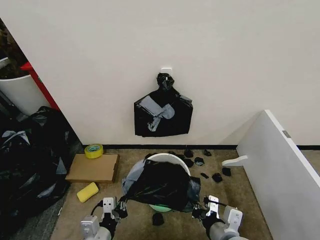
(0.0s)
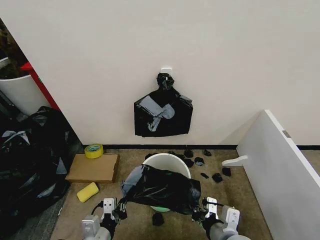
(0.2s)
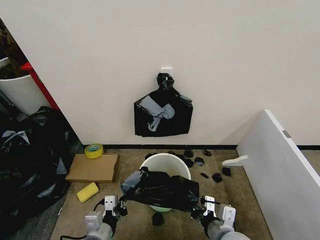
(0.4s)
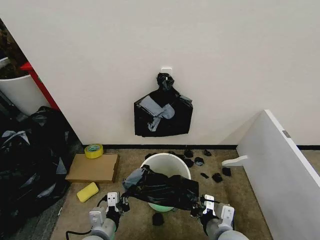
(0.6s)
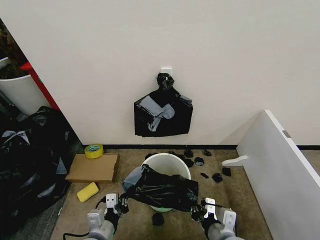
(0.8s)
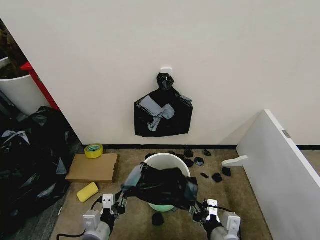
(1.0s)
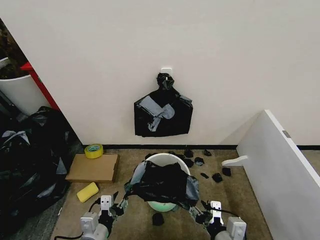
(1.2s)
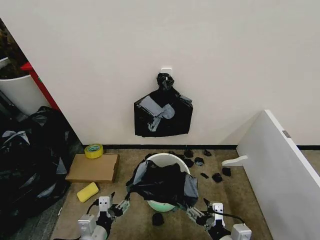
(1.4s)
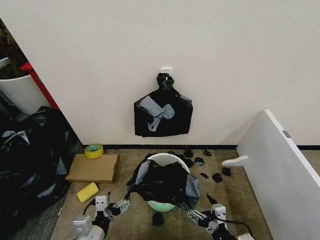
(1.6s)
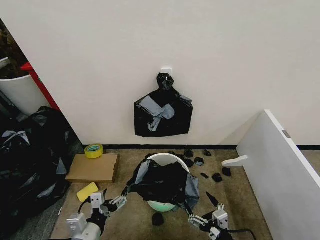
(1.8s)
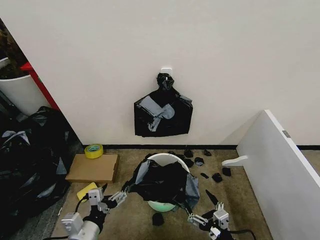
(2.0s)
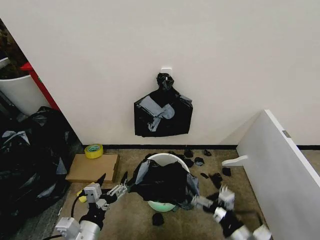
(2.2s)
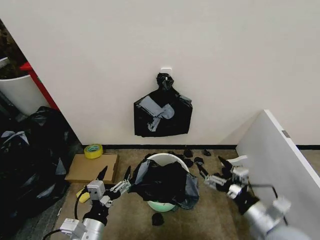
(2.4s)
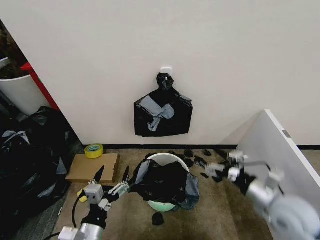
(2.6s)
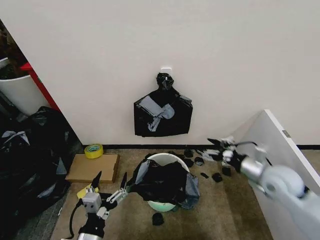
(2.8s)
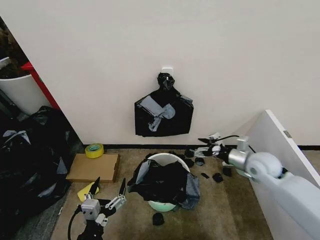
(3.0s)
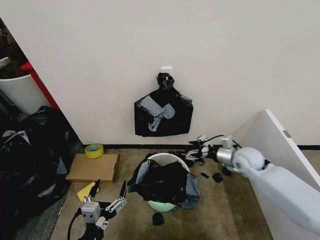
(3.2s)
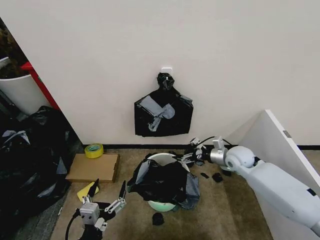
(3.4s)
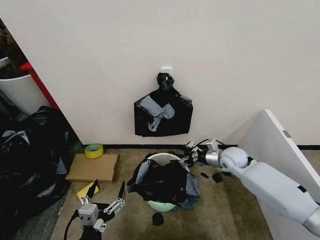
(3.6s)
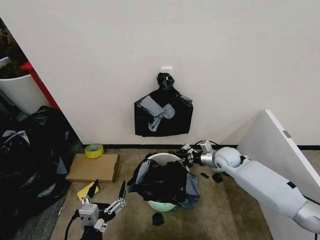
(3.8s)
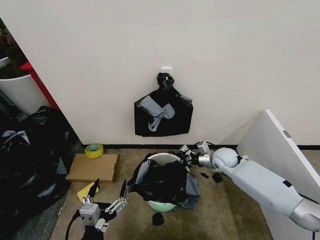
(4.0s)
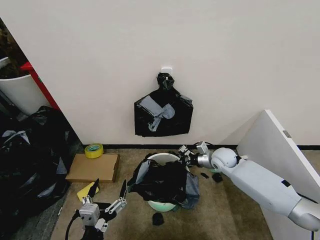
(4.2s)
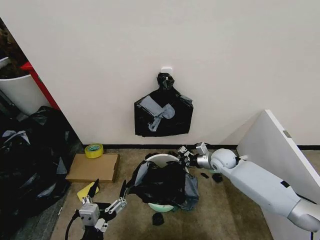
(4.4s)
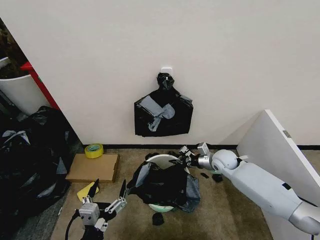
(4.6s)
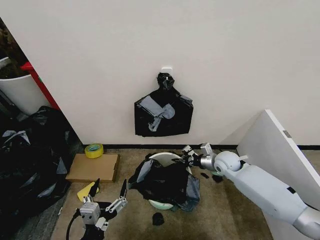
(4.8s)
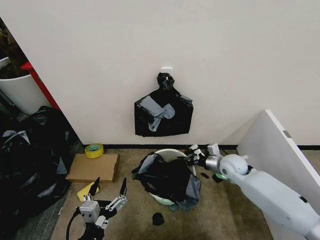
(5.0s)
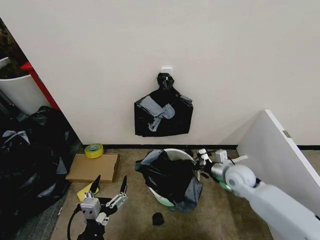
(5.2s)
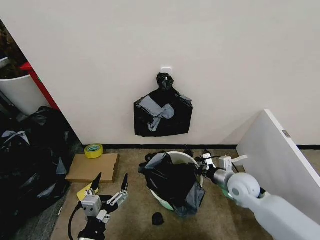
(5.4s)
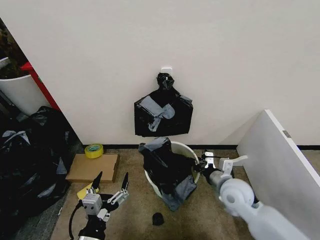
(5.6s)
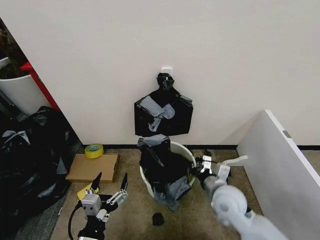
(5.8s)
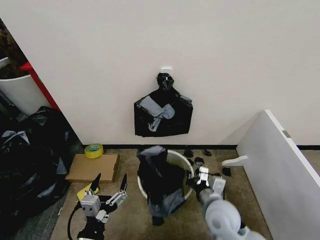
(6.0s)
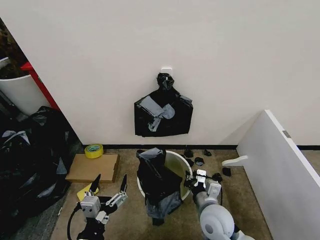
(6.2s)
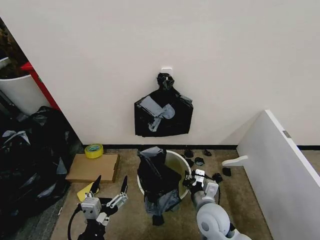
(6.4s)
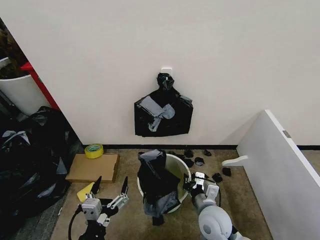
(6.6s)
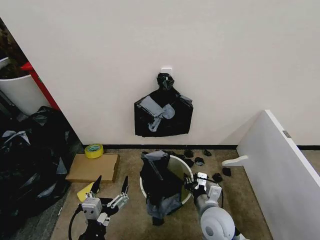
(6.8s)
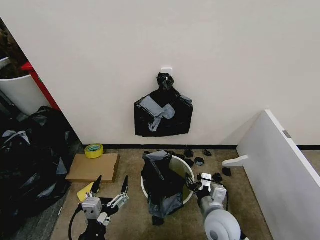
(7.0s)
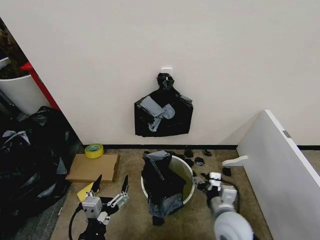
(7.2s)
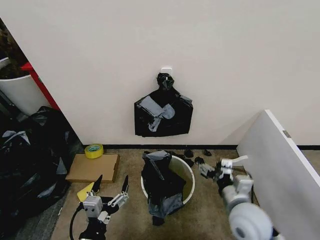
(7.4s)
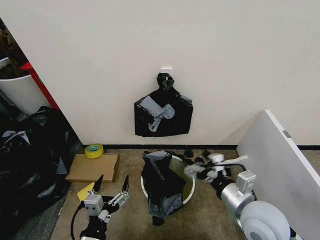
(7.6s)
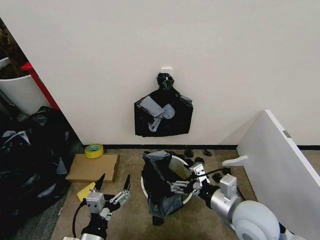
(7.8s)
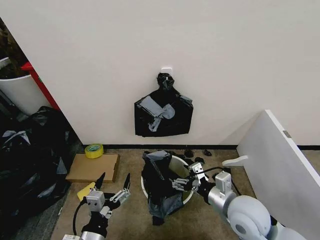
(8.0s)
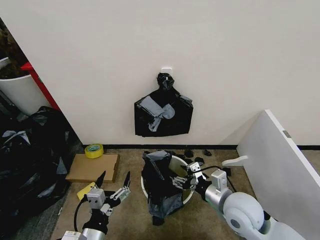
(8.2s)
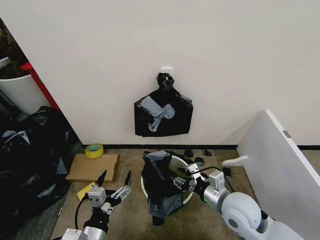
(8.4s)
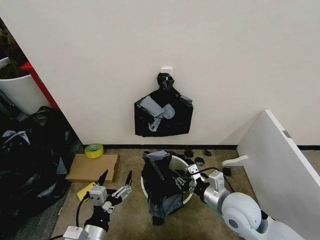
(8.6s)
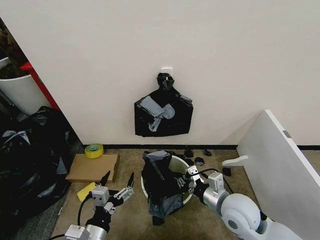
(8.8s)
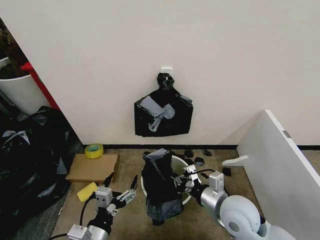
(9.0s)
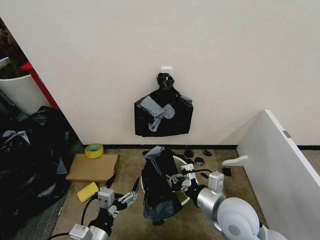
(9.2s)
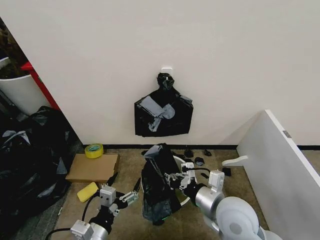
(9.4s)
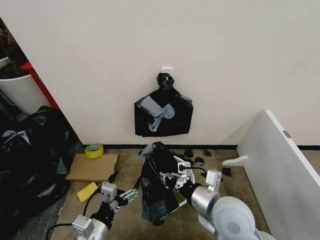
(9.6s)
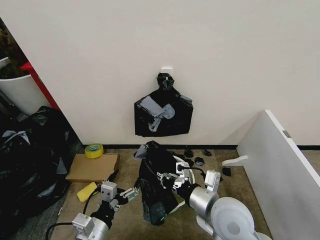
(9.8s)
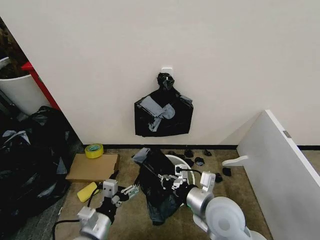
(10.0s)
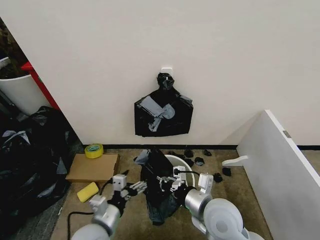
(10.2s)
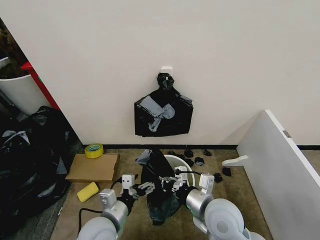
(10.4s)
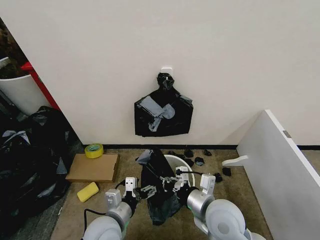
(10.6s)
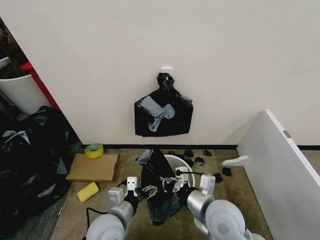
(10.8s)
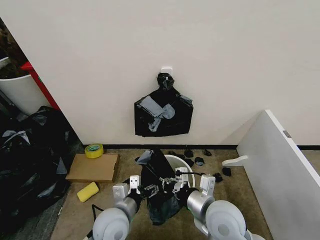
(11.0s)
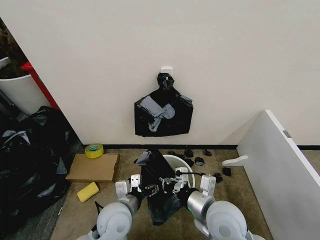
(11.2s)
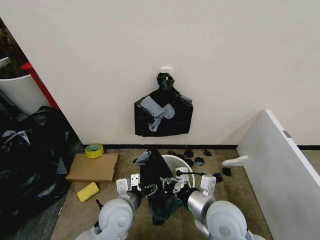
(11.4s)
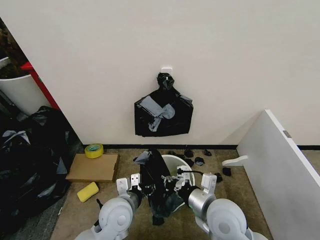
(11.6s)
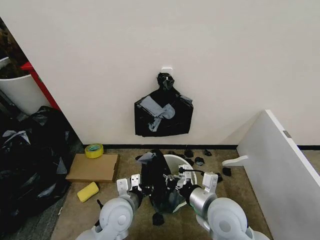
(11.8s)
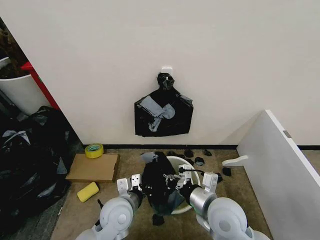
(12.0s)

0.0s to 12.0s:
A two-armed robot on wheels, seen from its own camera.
Task of the whole recording: Place the garbage bag over the trash bin.
0.0s to 1.6s: The left gripper opens. Meanwhile the right gripper is displaced backward and downward by approximately 5 cm, and opens.
1.6s to 3.0s: The left gripper ends up approximately 5 cm from where it was; the right gripper shifts some 30 cm forward and to the right.
3.0s to 4.4s: The right gripper moves downward, to the left and forward, roughly 15 cm, and closes its fingers.
4.4s to 6.0s: The right gripper travels backward by some 20 cm.
6.0s to 7.6s: The right gripper is displaced upward and to the right by some 10 cm, and opens its fingers.
7.6s to 9.0s: The right gripper changes place by approximately 5 cm, and closes.
9.0s to 10.4s: The left gripper heads forward, covering approximately 10 cm.
10.4s to 12.0s: The left gripper is displaced forward by approximately 5 cm, and closes.

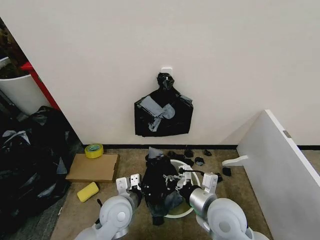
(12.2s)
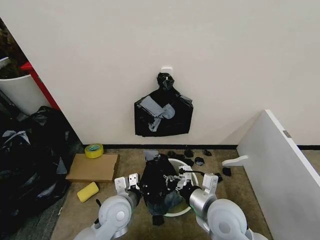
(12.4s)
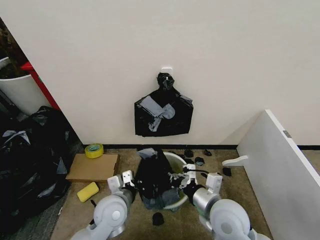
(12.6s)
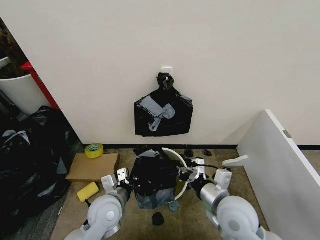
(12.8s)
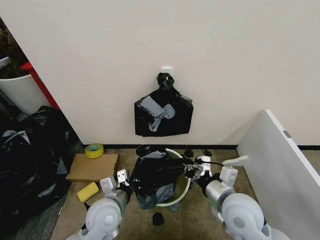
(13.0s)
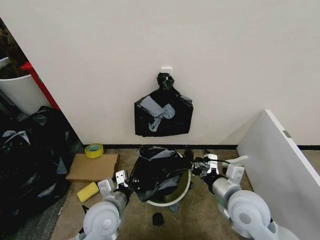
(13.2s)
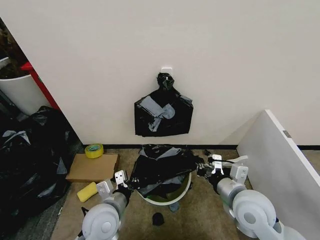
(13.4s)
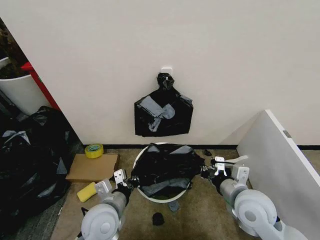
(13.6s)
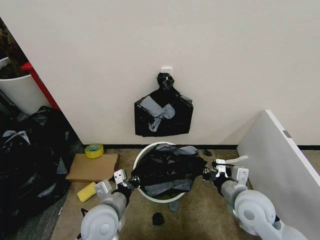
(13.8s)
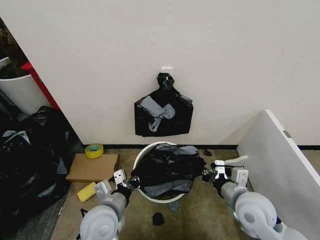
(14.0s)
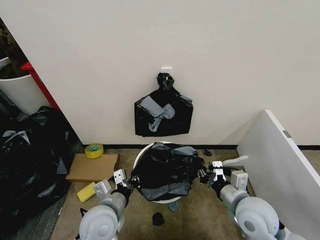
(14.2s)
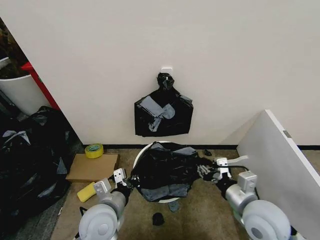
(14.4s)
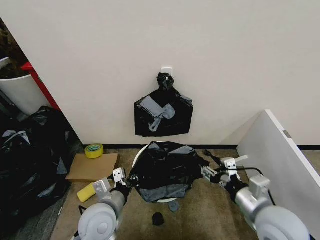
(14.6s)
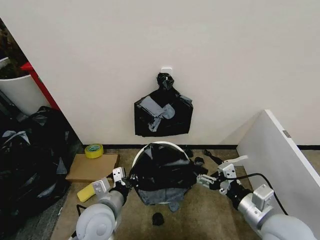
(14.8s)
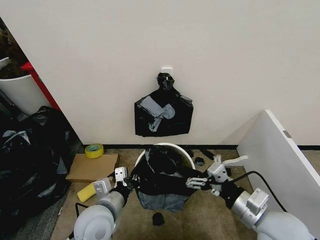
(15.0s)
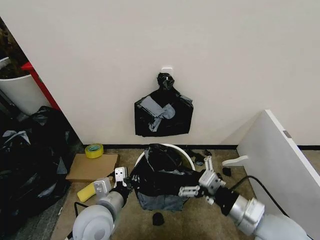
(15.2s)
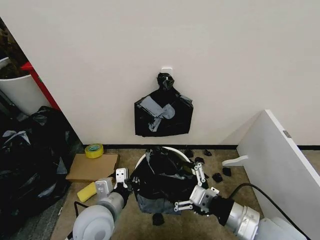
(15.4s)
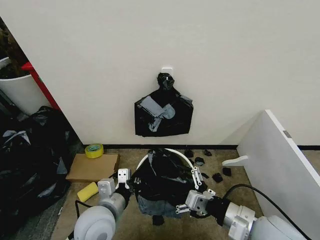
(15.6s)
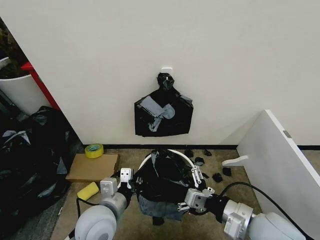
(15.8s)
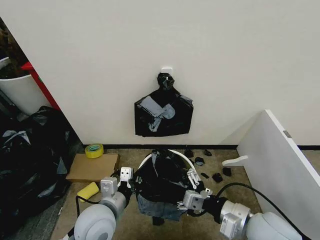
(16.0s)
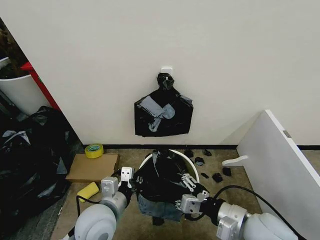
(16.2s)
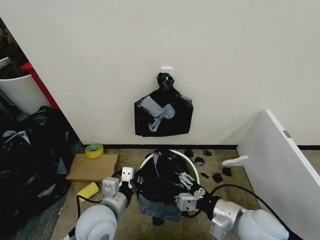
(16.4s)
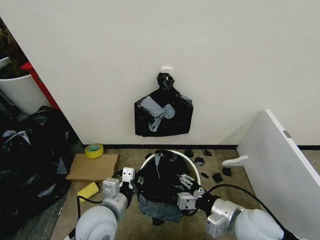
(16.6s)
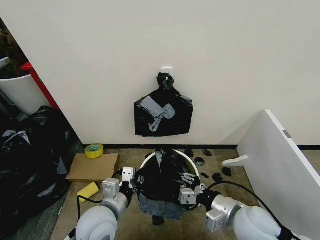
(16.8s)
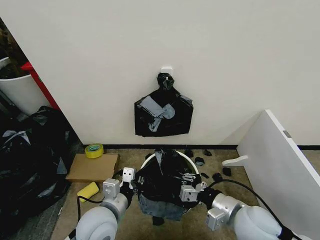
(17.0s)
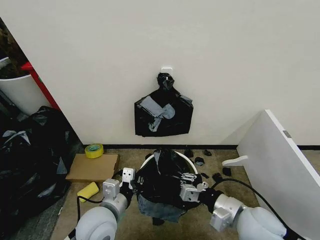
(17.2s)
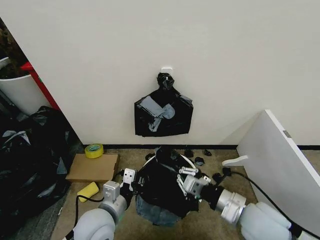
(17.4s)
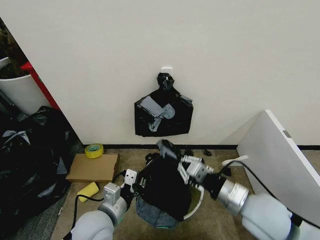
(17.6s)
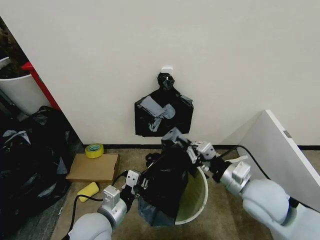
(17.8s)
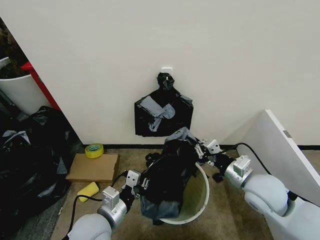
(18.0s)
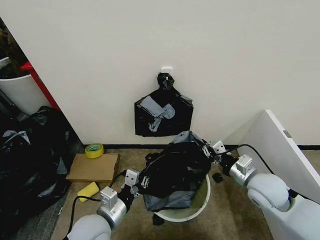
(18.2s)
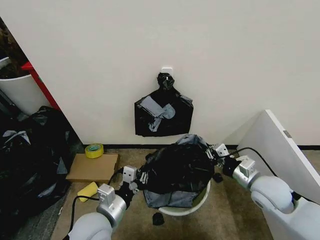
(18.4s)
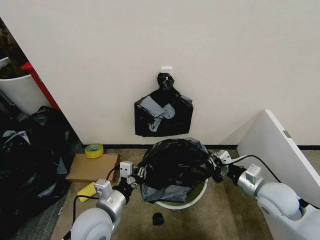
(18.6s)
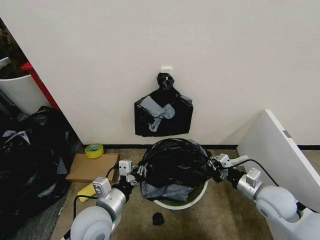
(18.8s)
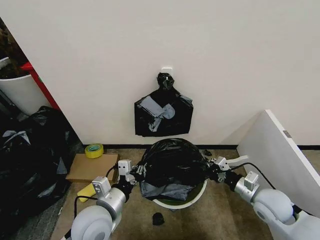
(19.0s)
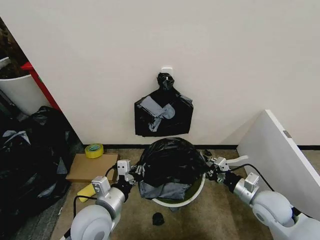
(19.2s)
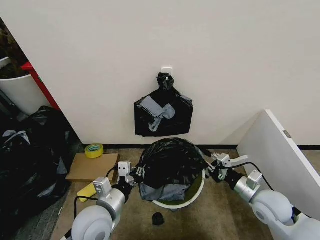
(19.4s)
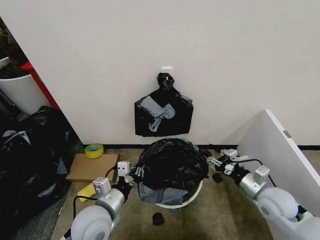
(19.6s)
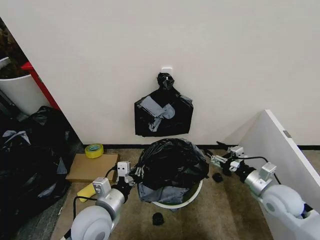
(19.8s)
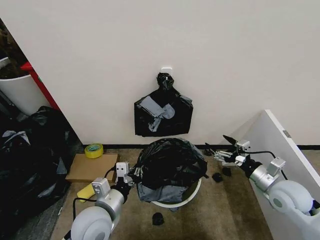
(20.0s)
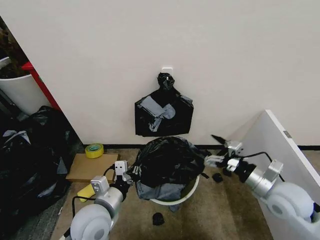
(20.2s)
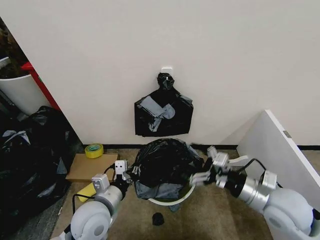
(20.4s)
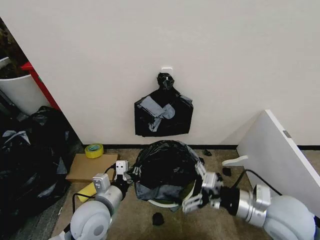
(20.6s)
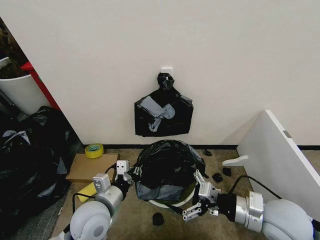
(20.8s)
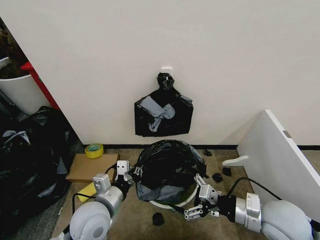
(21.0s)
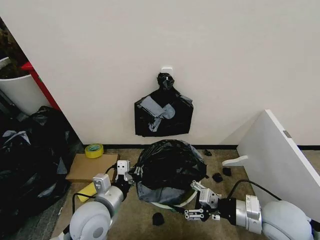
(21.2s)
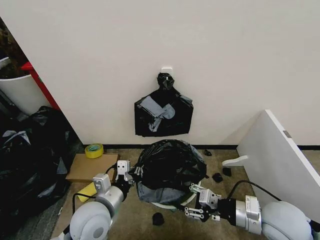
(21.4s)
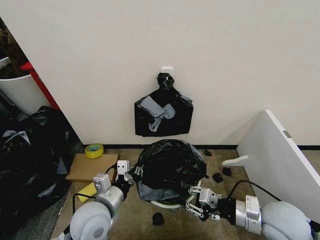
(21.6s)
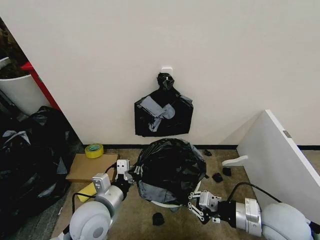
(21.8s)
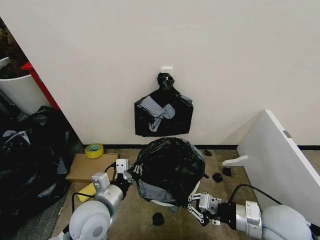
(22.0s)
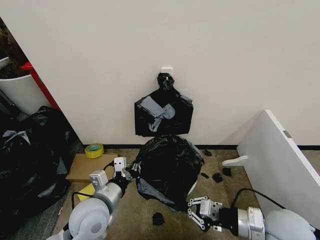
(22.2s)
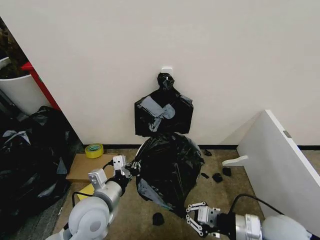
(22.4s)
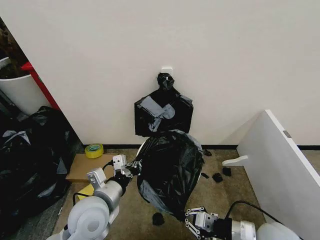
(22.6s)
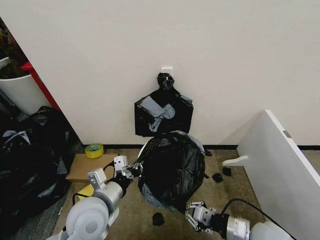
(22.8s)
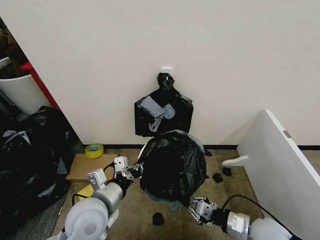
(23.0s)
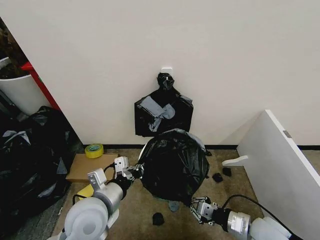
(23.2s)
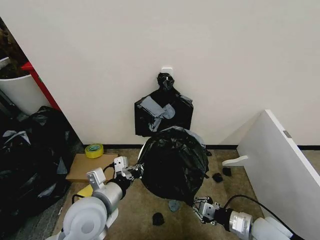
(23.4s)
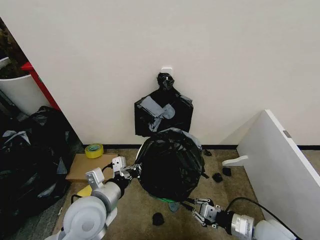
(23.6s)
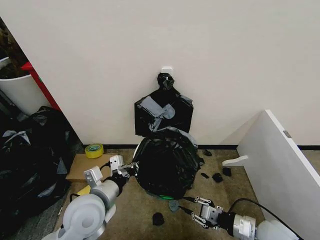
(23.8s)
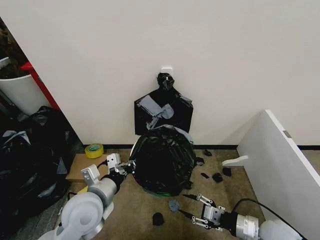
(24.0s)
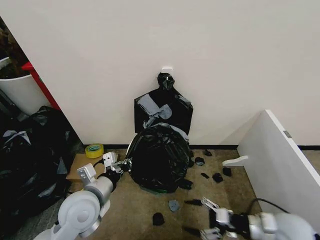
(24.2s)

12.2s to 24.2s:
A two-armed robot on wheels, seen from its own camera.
Task of the whole recording: Place the garbage bag over the trash bin.
12.2s to 13.8s: The left gripper shifts by some 5 cm, while the right gripper moves to the right, roughly 10 cm.
13.8s to 15.2s: The right gripper travels backward by about 10 cm, and opens up.
15.2s to 16.6s: The right gripper closes.
16.6s to 18.2s: The right gripper is displaced forward and to the right by about 15 cm, and closes up.
18.2s to 19.8s: The right gripper goes some 5 cm to the right, and opens up.
19.8s to 21.2s: The right gripper moves to the left, backward and upward, about 10 cm.
21.2s to 22.6s: The right gripper travels downward by approximately 5 cm, and closes up.
22.6s to 24.2s: The right gripper goes about 5 cm to the right, and opens up.
